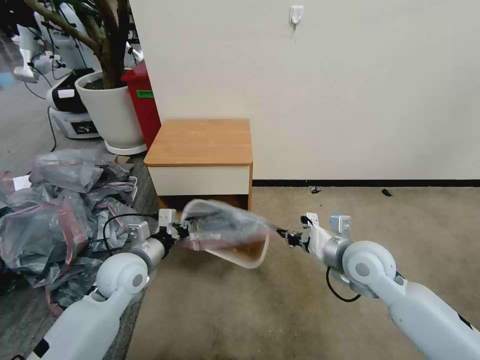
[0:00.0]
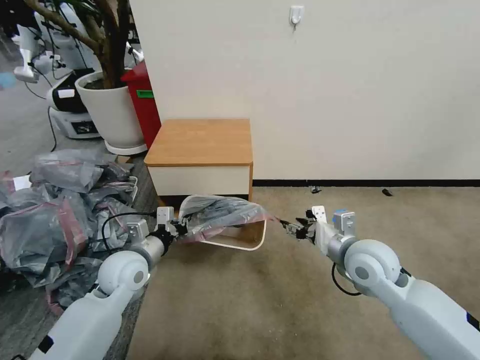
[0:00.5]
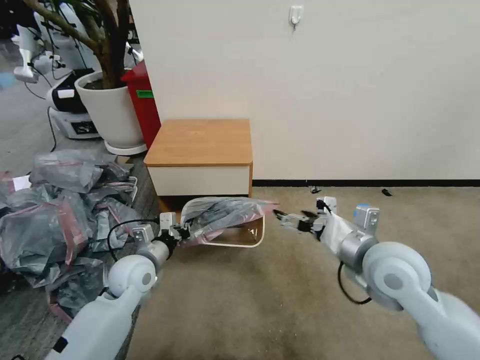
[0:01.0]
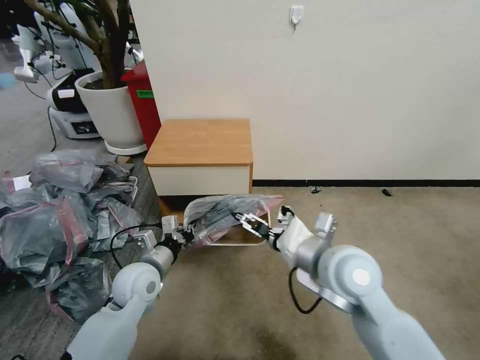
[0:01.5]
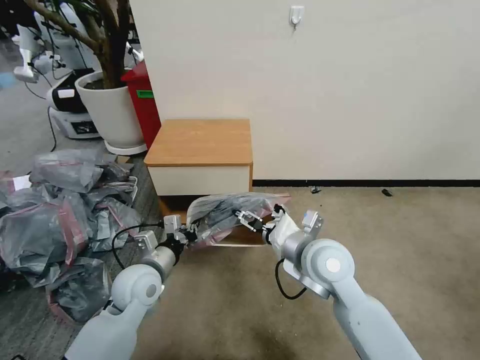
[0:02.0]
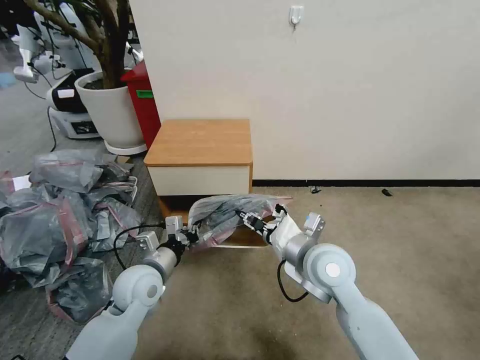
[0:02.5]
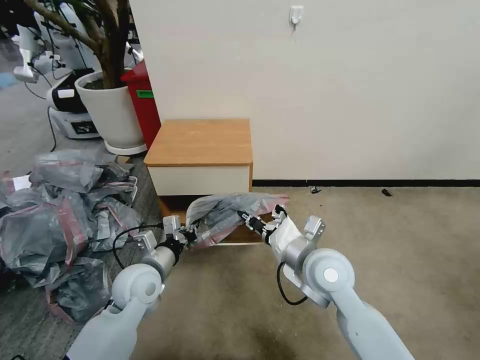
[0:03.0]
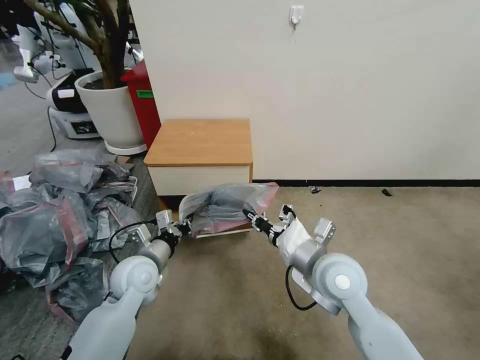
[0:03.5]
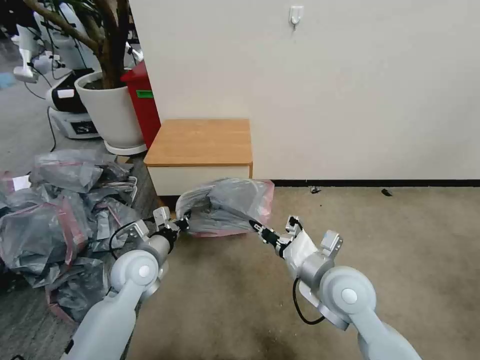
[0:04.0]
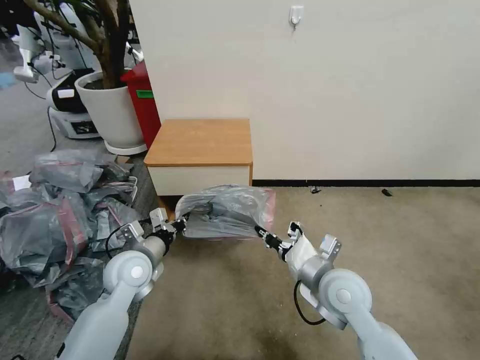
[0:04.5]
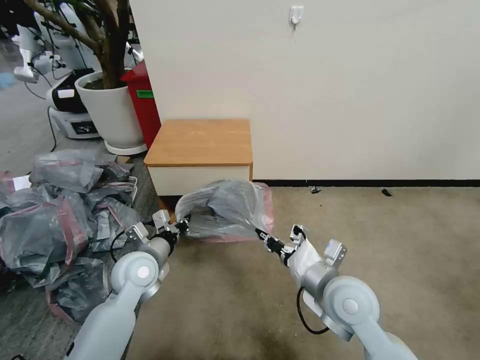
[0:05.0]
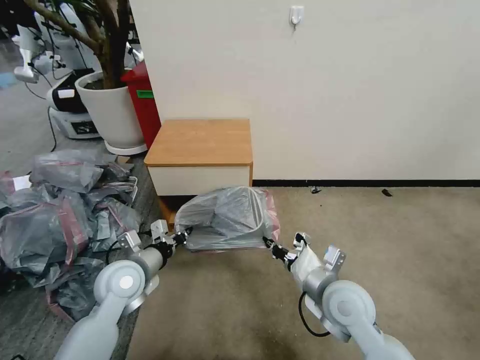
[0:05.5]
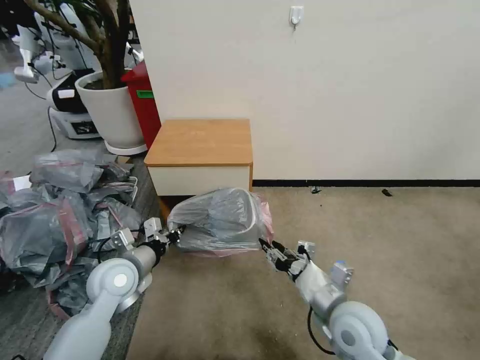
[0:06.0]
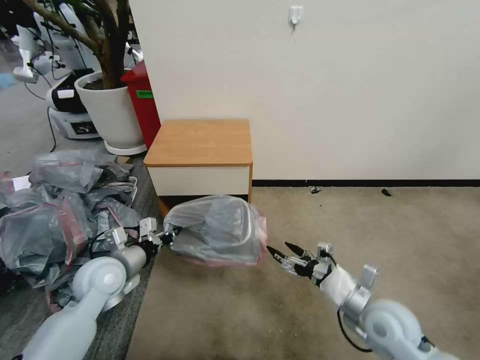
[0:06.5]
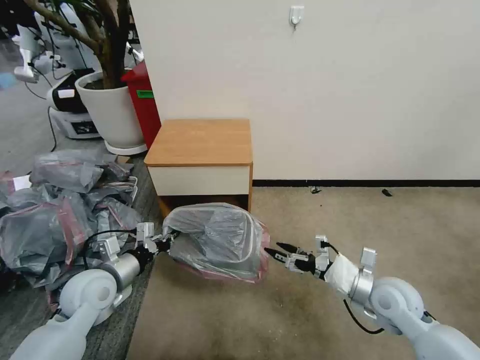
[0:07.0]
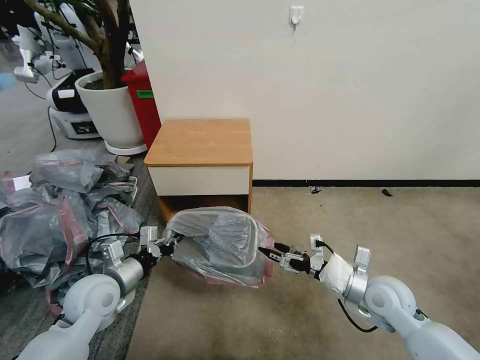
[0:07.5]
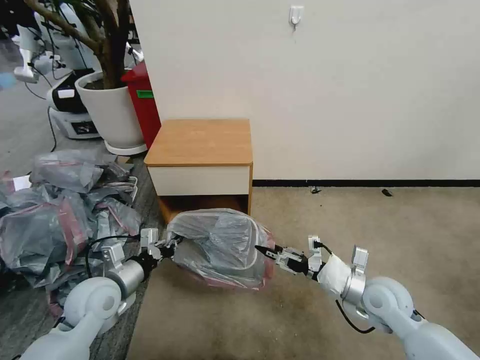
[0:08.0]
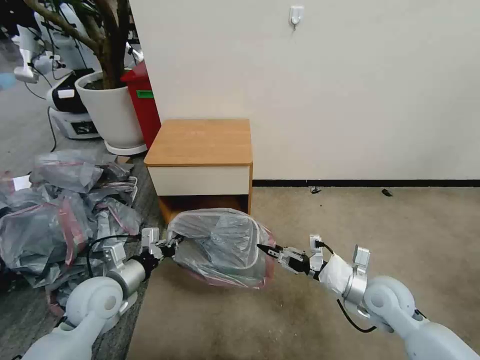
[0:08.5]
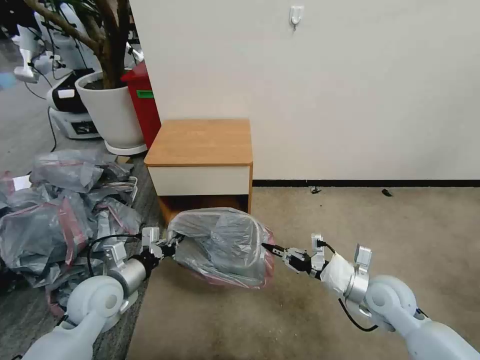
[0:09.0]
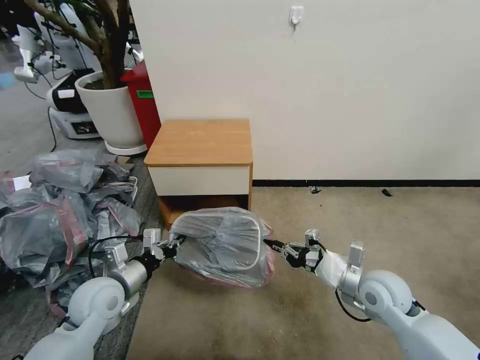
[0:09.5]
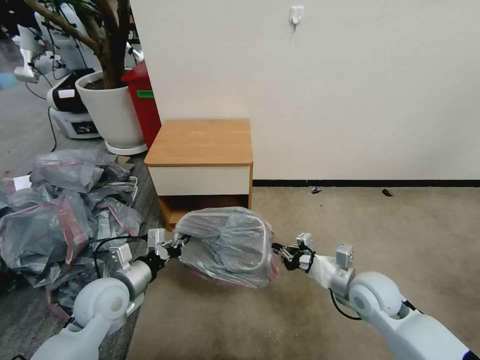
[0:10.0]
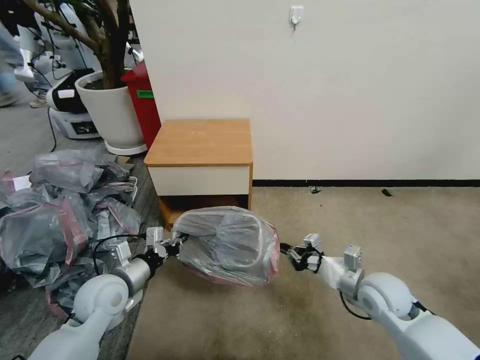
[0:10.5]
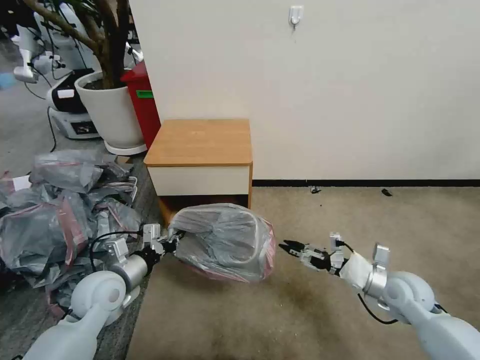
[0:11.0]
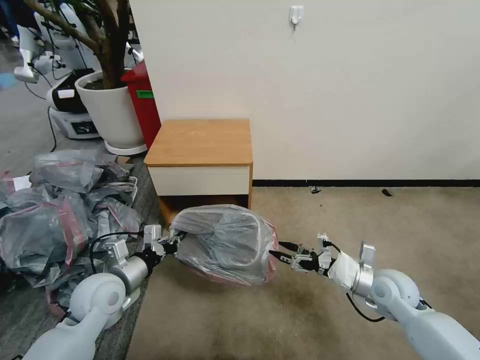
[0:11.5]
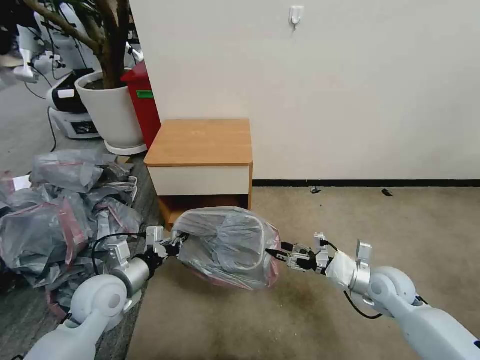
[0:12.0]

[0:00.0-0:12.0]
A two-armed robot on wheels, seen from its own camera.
Task of the whole recording: Pick up the garbage bag from the table and place it over the trash can.
0:00.0 to 0:02.0: The right gripper moves to the left, approximately 10 cm, and opens its fingers.
0:02.0 to 0:04.0: The right gripper ends up approximately 5 cm from where it was, and closes up.
0:04.0 to 0:06.0: The right gripper travels downward by some 5 cm, and opens up.
0:06.0 to 0:08.0: The left gripper ends up some 5 cm from where it was, while the right gripper moves to the right and forward, approximately 10 cm, and opens, then closes again.
0:08.0 to 0:10.0: The right gripper closes up.
0:10.0 to 0:12.0: The right gripper moves to the right, some 5 cm, and opens.

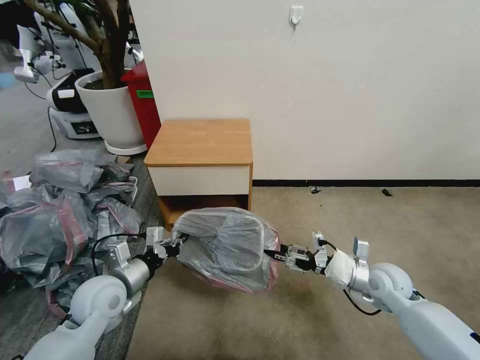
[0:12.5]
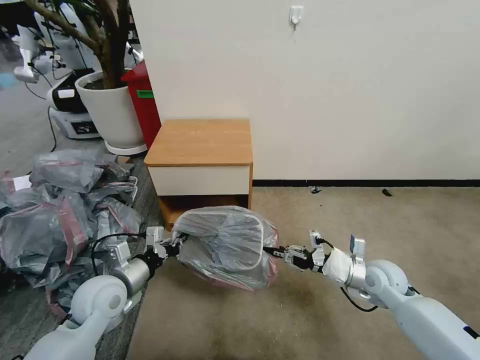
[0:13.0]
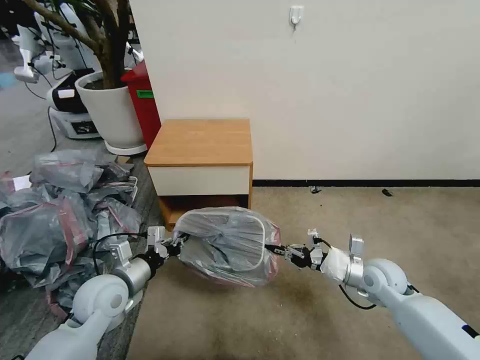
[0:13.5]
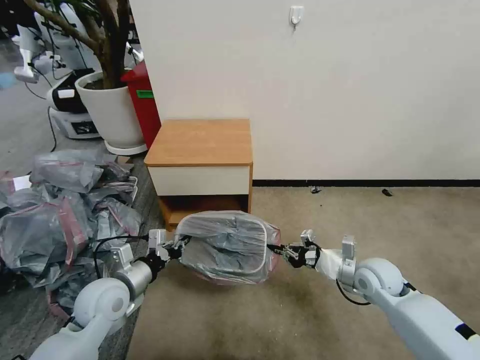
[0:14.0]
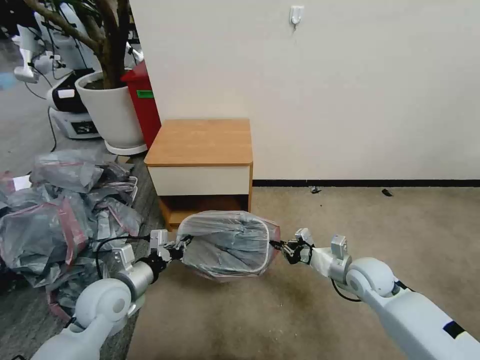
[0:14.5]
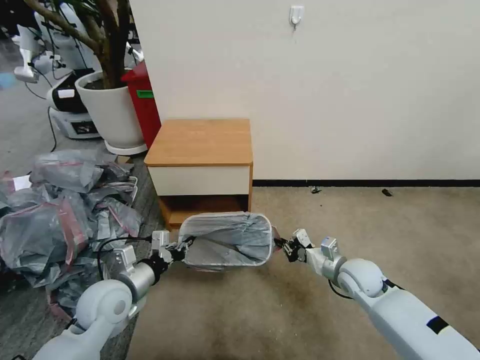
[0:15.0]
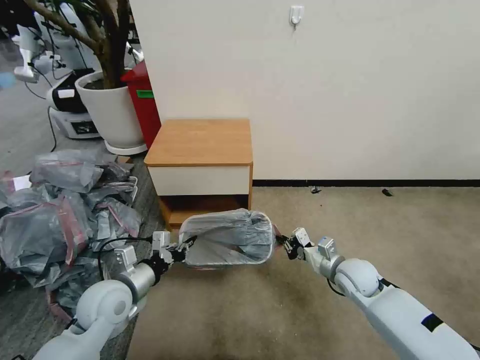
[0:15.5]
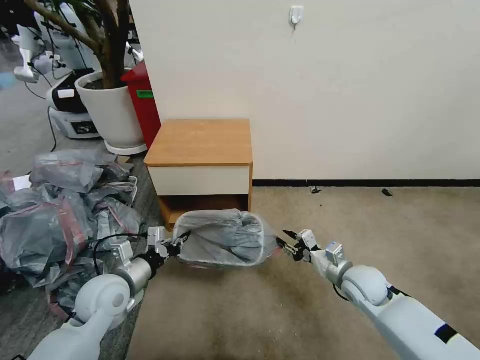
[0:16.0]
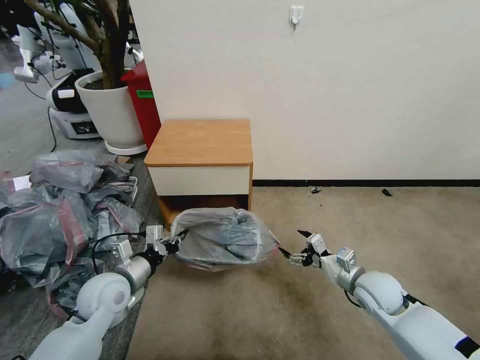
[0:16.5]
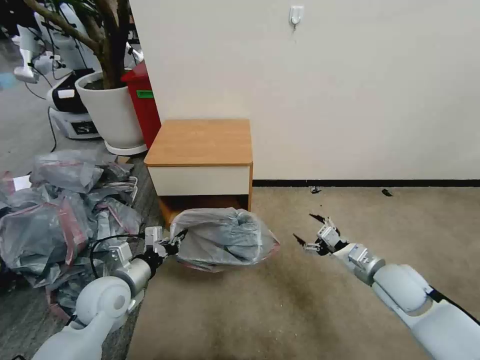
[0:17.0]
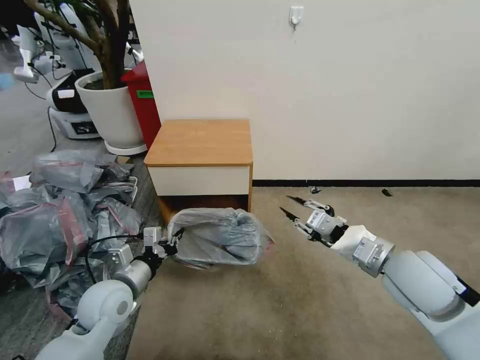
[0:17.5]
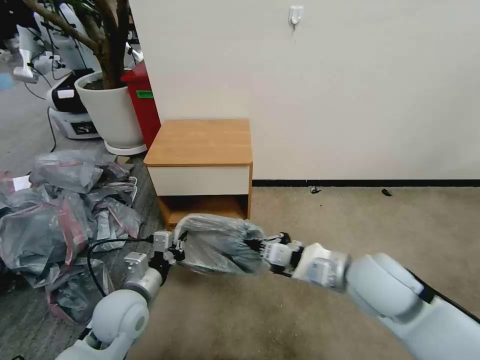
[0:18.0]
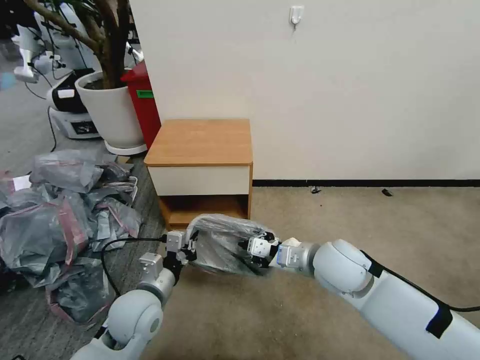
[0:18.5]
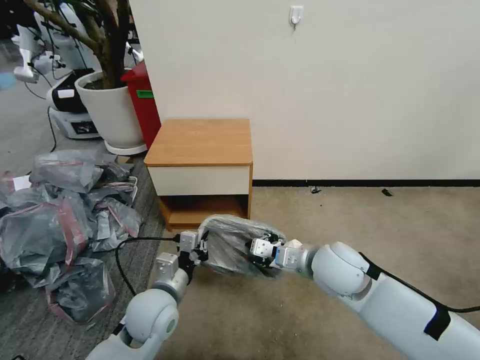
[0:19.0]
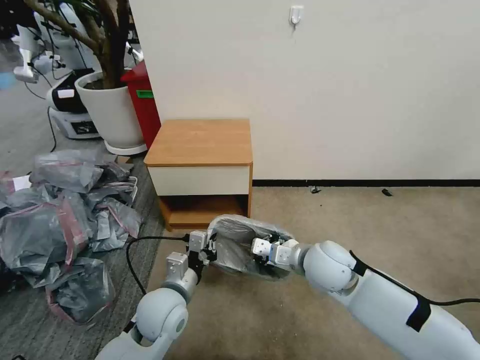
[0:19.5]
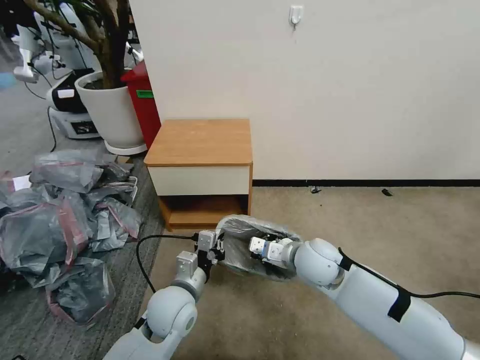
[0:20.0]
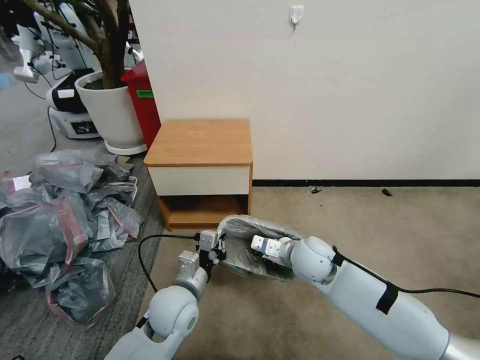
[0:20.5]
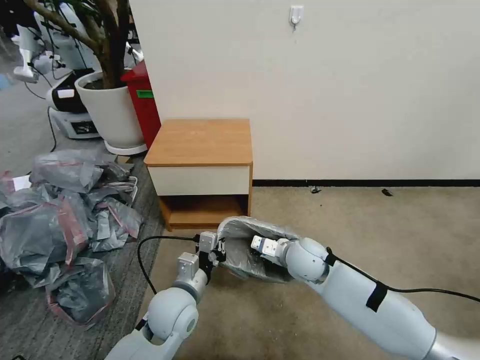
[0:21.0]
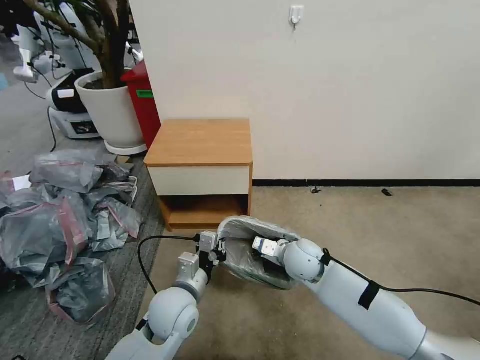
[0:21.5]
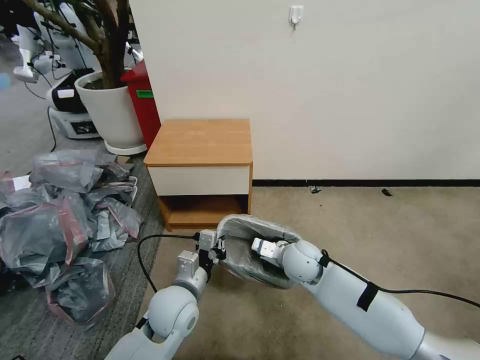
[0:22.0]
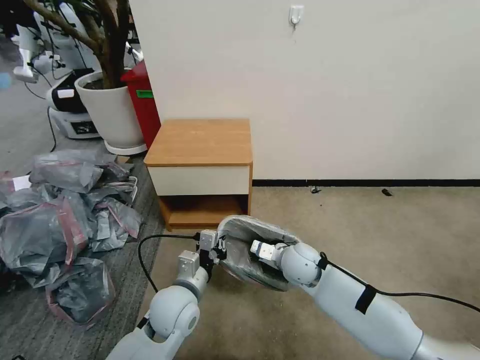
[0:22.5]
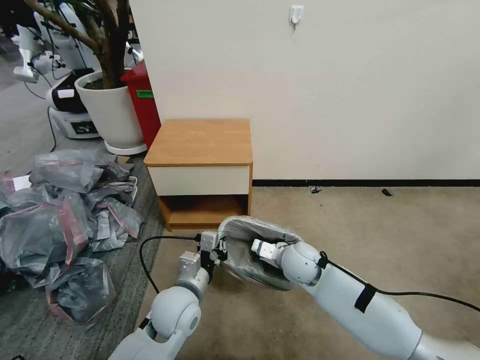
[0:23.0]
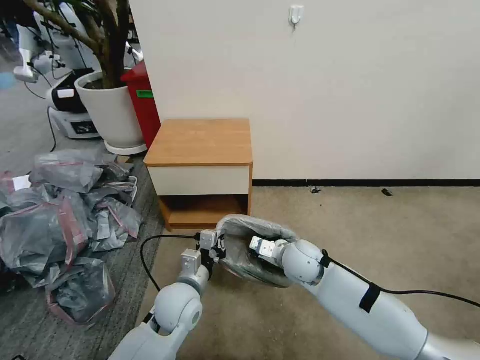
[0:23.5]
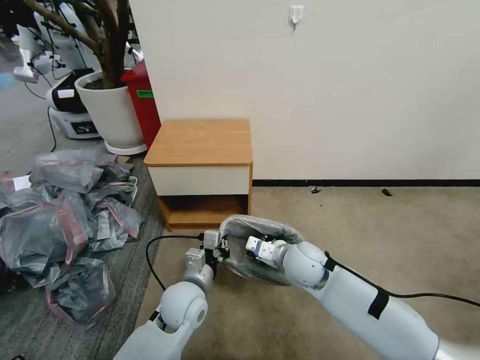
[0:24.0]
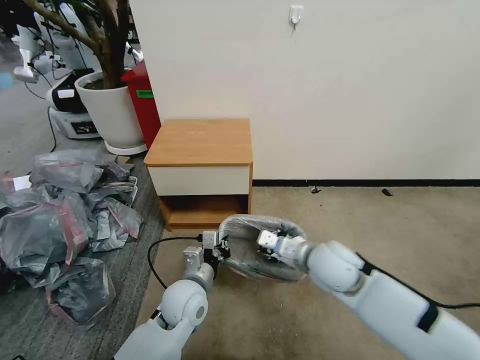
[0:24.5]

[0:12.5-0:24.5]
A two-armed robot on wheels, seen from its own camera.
Task of the whole recording: Pick up the garbage bag from the table and place it over the trash can.
0:12.5 to 0:14.5: The right gripper closes up.
0:14.5 to 0:16.5: The right gripper opens up.
0:16.5 to 0:18.5: The right gripper heads upward and to the left, covering approximately 20 cm, and closes up. The left gripper goes approximately 10 cm to the right.
0:18.5 to 0:20.5: The left gripper travels to the right by approximately 5 cm. The right gripper travels downward by roughly 5 cm.
0:20.5 to 0:22.5: There are only small adjustments of the grippers.
0:22.5 to 0:24.5: The right gripper heads upward and backward, covering roughly 10 cm.

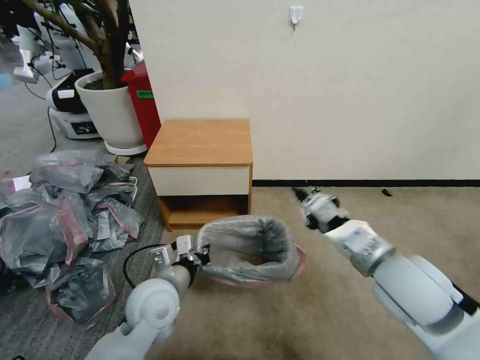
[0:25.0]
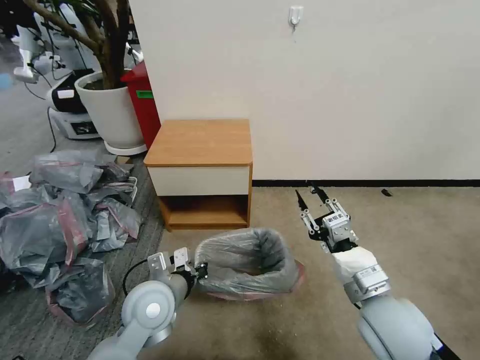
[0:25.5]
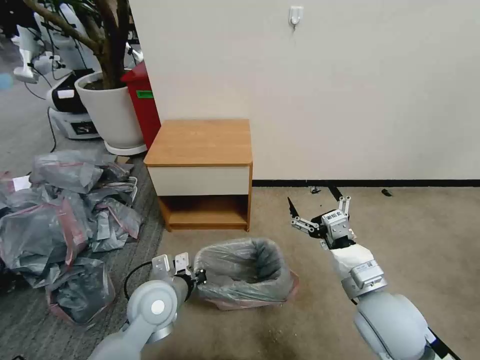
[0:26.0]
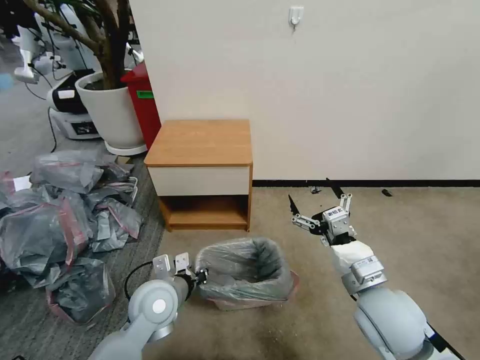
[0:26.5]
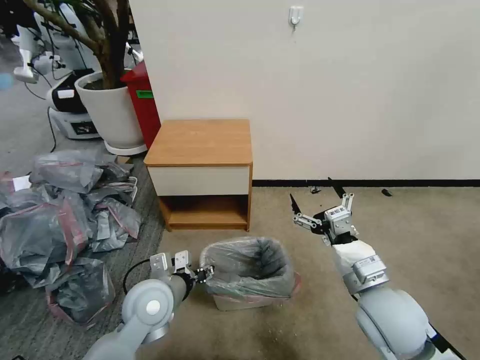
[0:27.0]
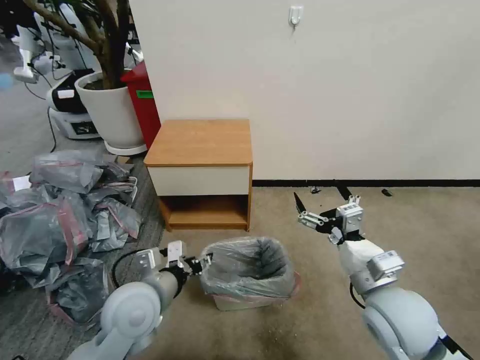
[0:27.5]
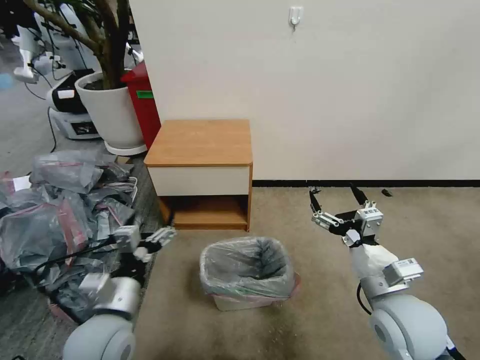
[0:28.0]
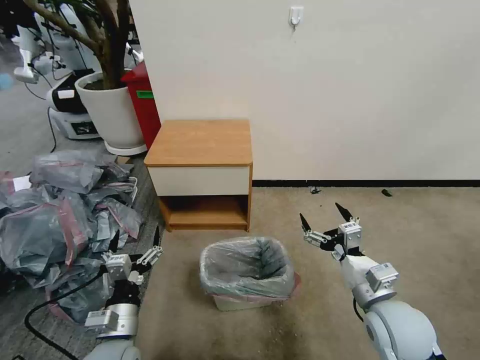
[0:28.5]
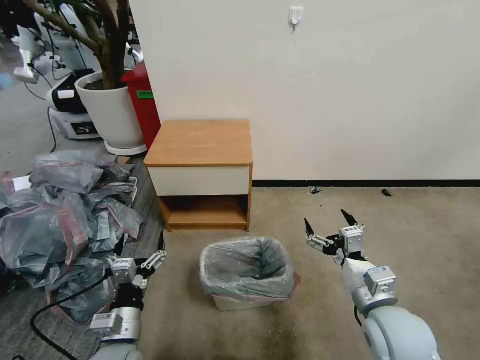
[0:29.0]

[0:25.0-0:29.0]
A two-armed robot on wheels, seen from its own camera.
Task of the whole recording: Pick up the garbage bag from the table and place it over the trash can.
0:25.0 to 0:27.0: The left gripper opens, while the right gripper shifts roughly 5 cm downward, and opens.
0:27.0 to 0:29.0: The left gripper is displaced backward, downward and to the left by roughly 15 cm, and opens up.
